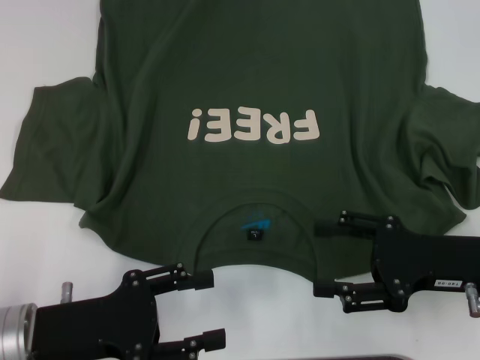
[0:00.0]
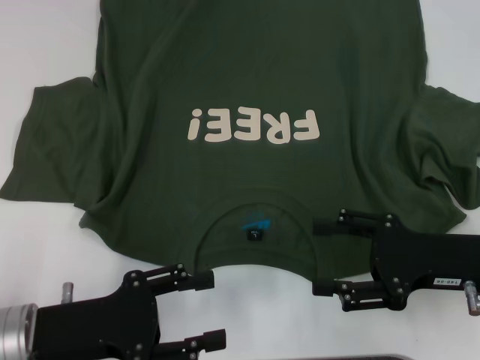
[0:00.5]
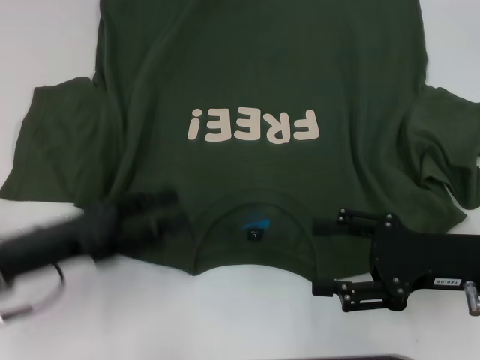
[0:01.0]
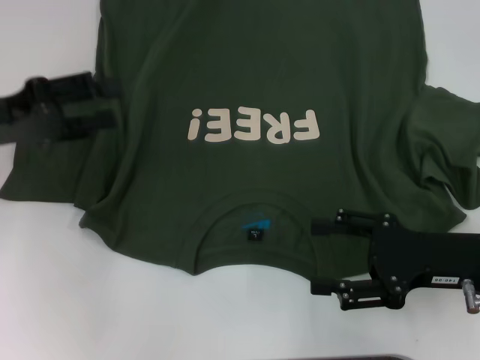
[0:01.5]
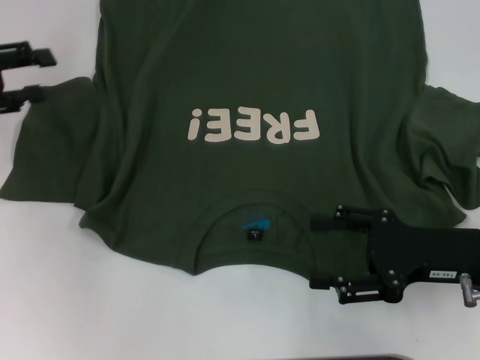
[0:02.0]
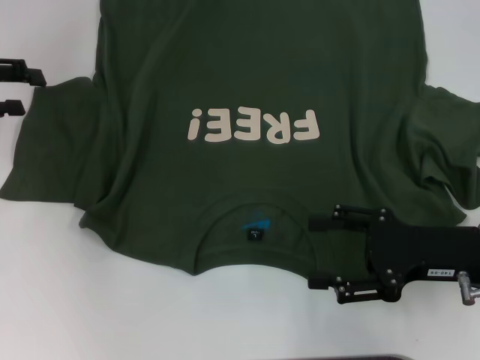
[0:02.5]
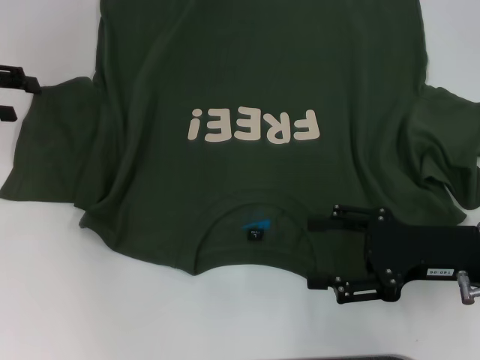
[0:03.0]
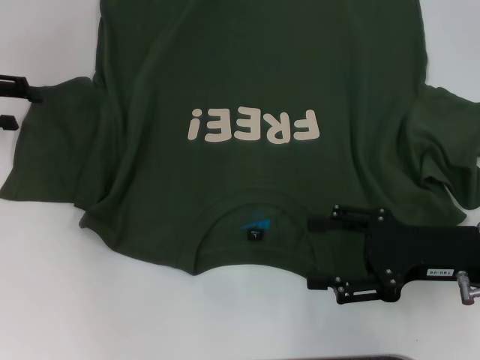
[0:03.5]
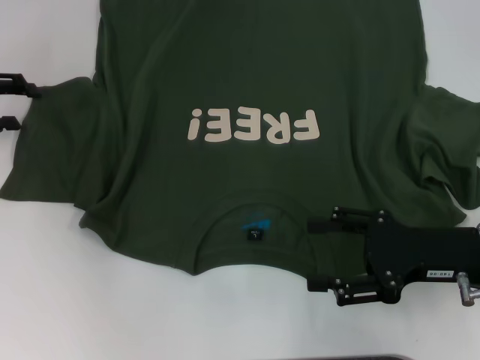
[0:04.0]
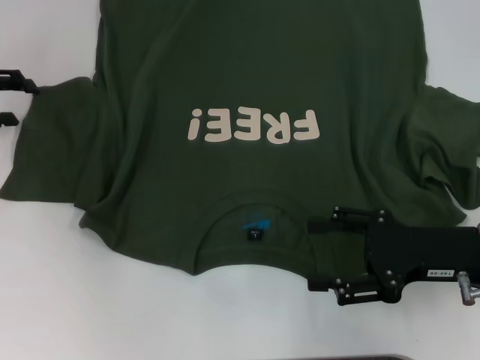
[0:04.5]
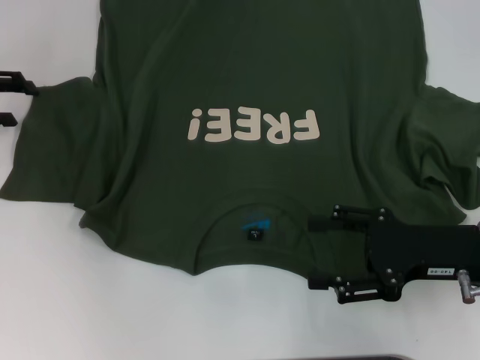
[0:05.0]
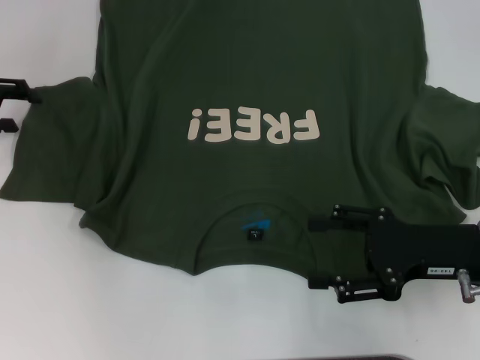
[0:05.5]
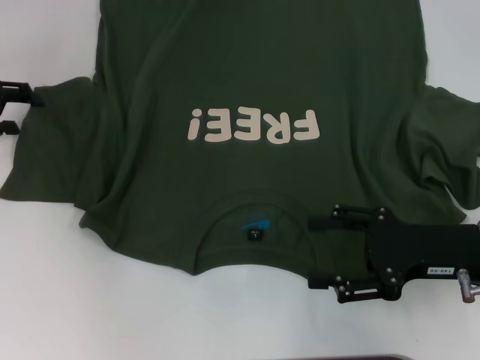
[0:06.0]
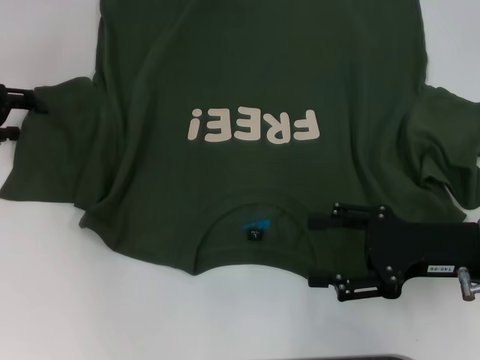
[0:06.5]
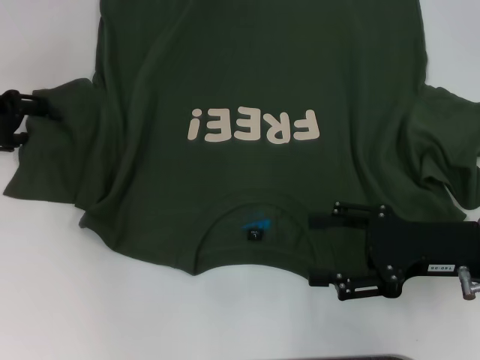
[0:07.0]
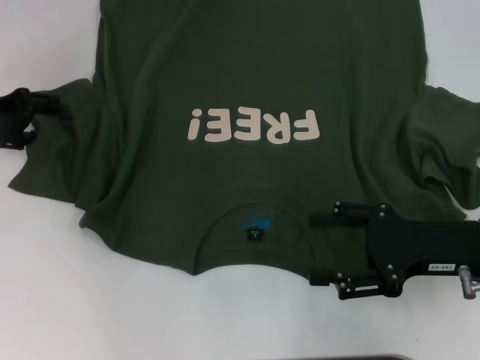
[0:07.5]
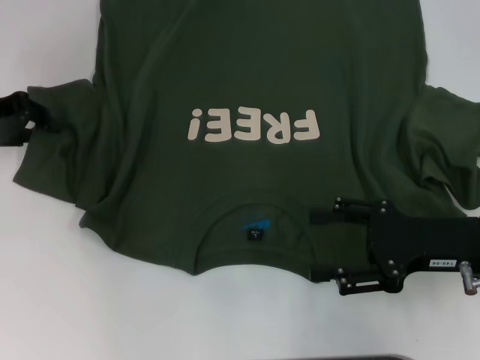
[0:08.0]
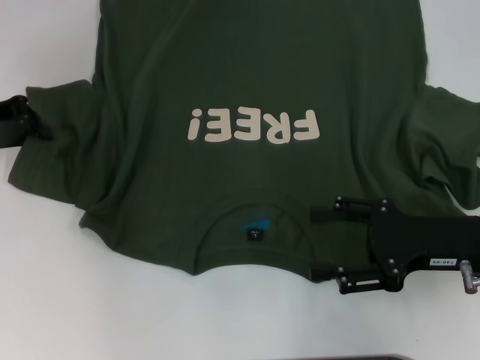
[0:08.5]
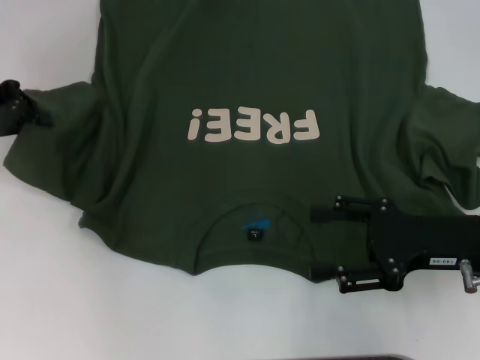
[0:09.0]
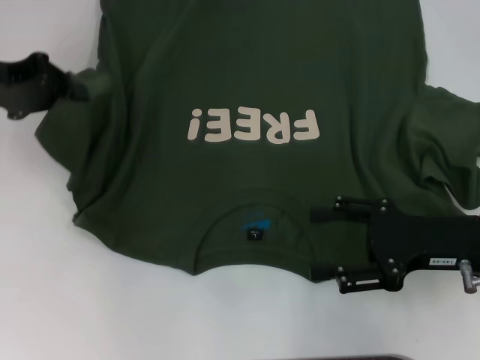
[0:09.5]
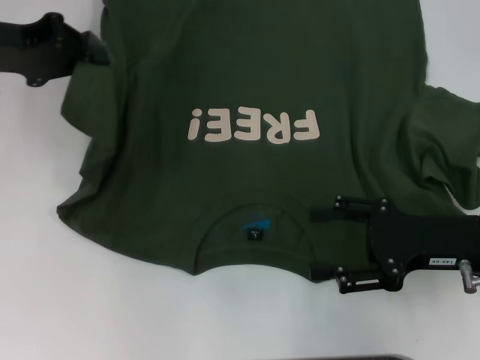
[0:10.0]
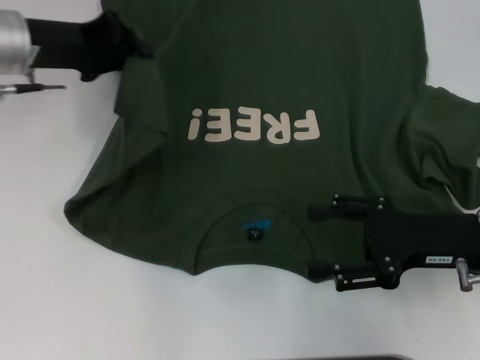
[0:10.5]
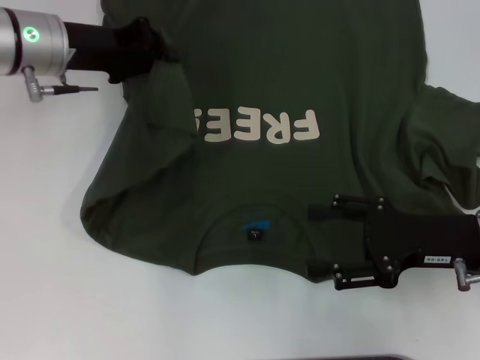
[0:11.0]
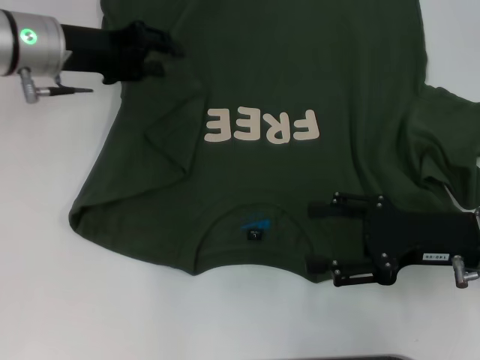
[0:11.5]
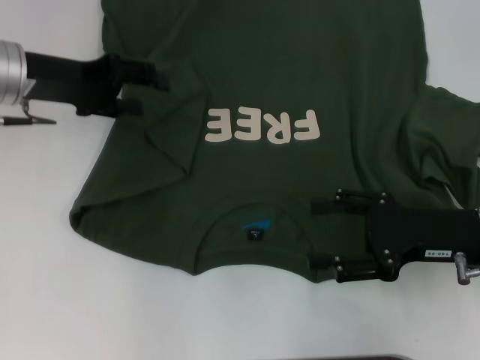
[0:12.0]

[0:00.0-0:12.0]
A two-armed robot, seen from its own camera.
0.0 to 2.0 s: The left gripper shifts roughly 25 cm forward, to the left and upward.
4.0 to 8.0 s: The grippers move only a little.
8.0 to 10.0 s: The left gripper travels upward by roughly 5 cm, and closes its fingers.
10.0 to 12.0 s: The left gripper opens up.

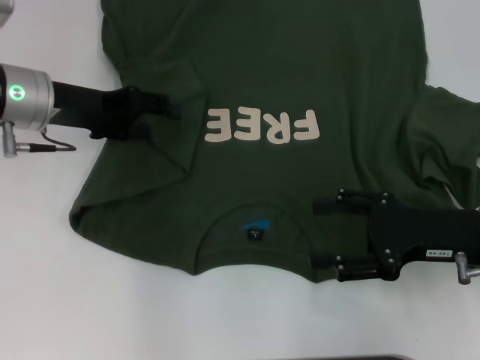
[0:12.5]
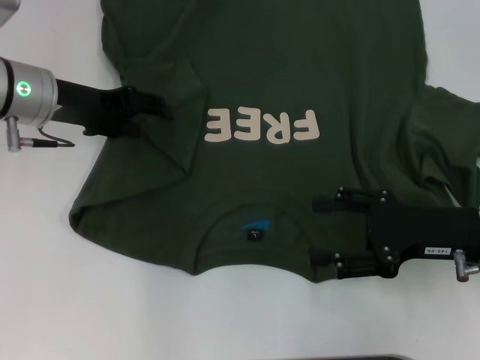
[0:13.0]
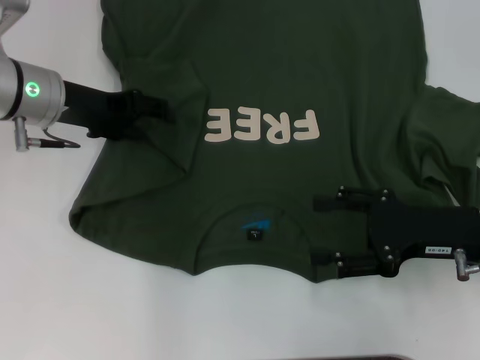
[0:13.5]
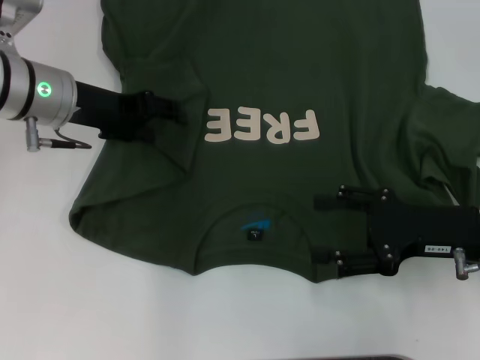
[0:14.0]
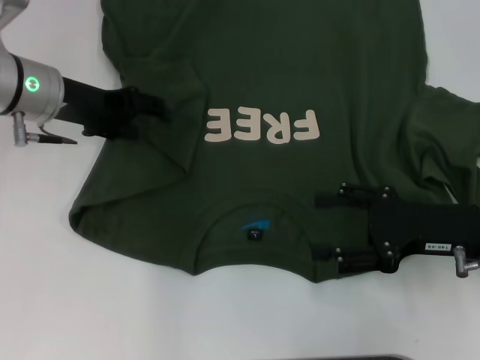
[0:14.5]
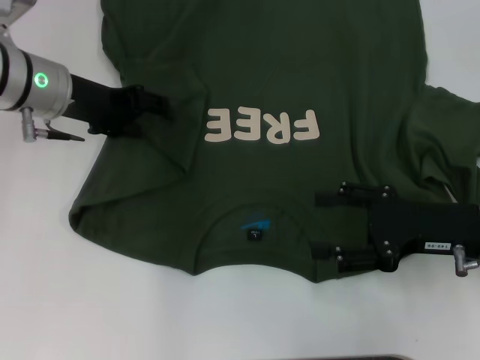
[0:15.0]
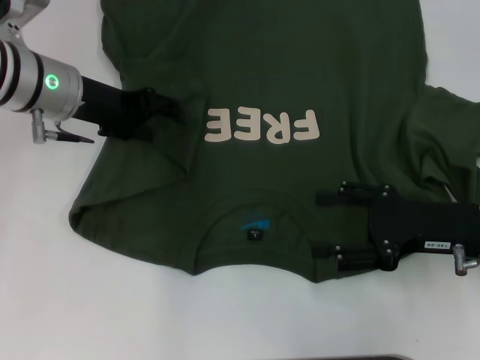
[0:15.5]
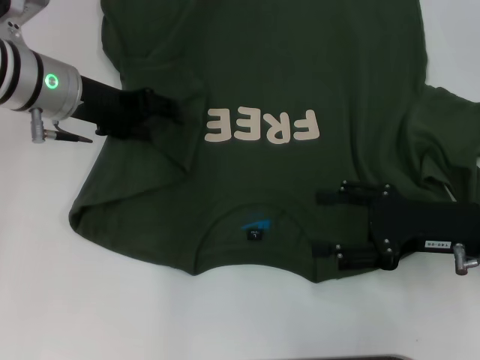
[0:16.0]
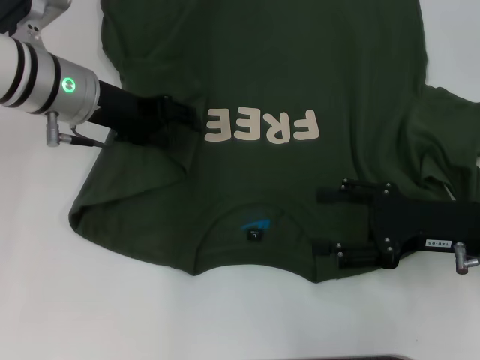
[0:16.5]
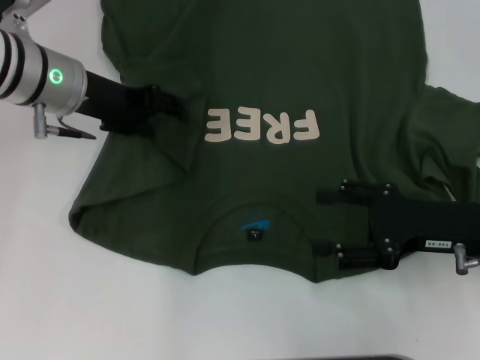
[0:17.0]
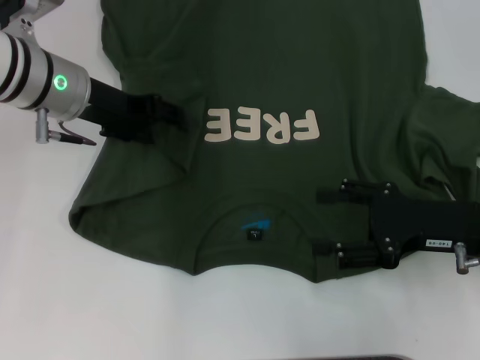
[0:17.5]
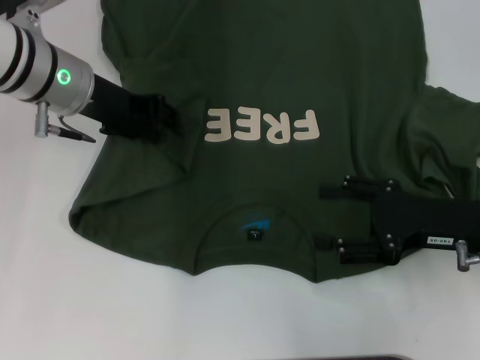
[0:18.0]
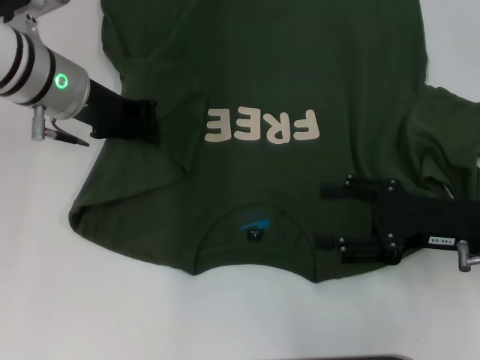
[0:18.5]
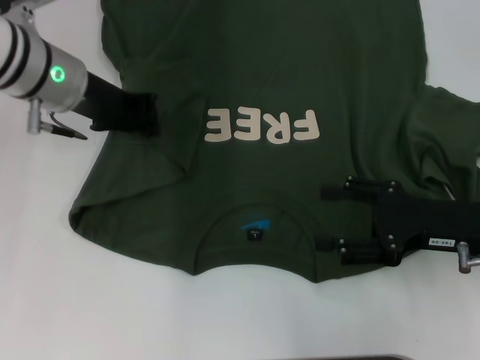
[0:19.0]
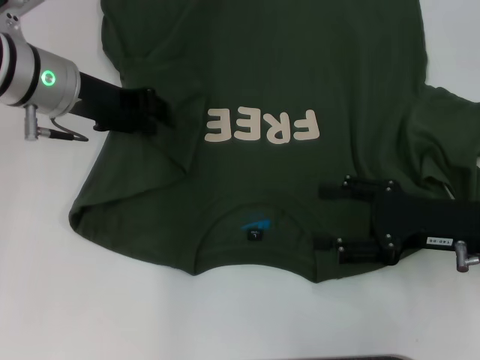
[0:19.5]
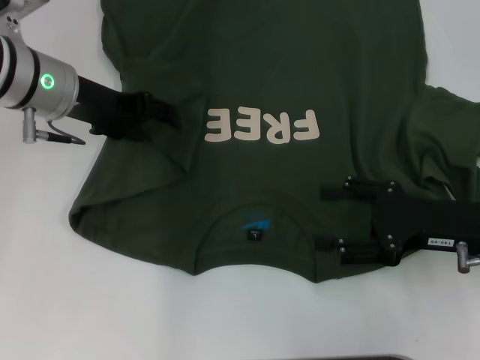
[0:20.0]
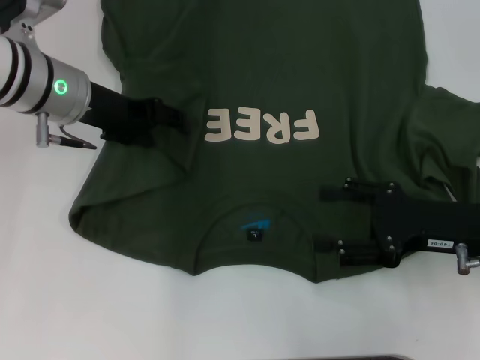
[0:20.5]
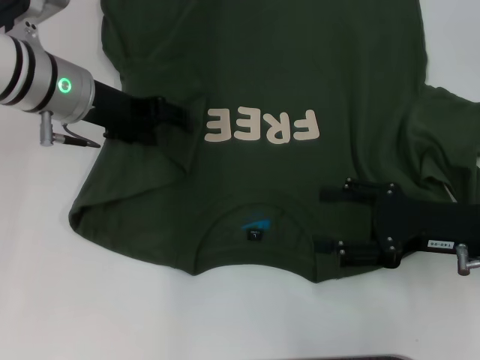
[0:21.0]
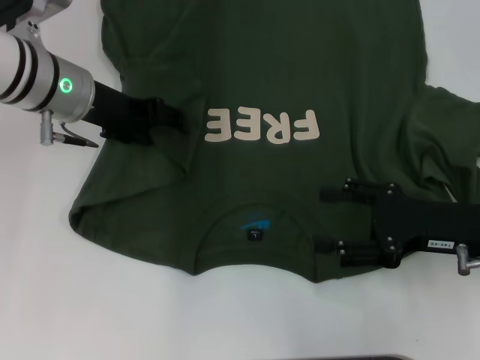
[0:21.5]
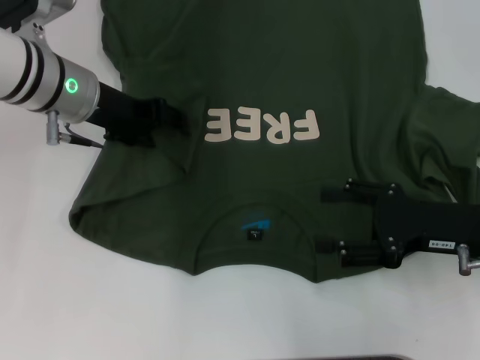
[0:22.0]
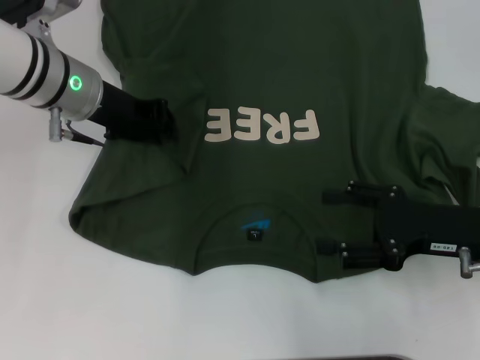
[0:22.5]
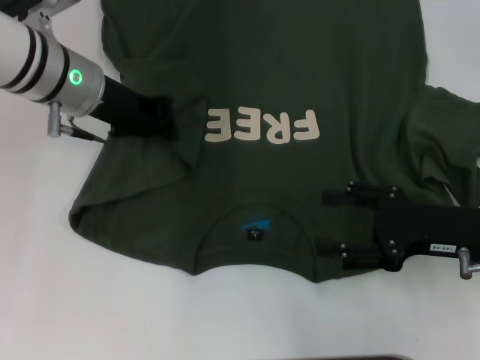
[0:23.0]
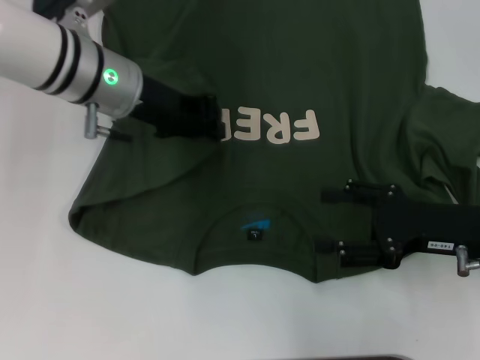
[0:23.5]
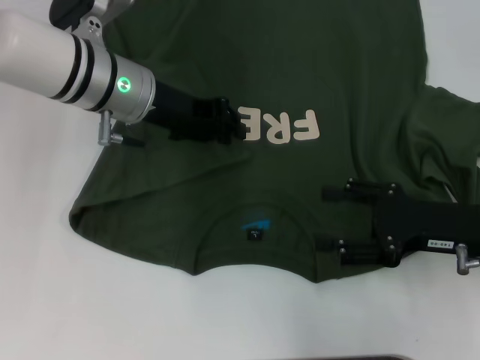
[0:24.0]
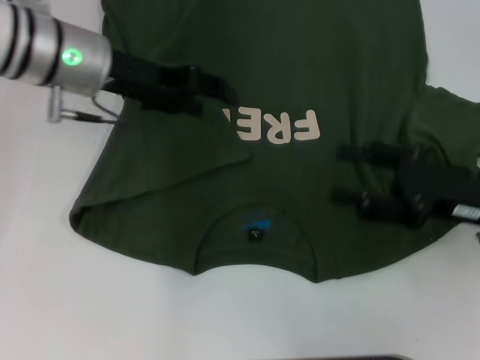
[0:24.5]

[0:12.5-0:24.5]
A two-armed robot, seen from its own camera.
12.5 to 16.5 s: The grippers make only small movements.
16.5 to 18.5 s: The left gripper closes its fingers.
18.5 to 20.5 s: The left gripper opens.
20.5 to 22.5 s: The left gripper closes up.
22.5 to 24.5 s: The left gripper closes, then opens again.

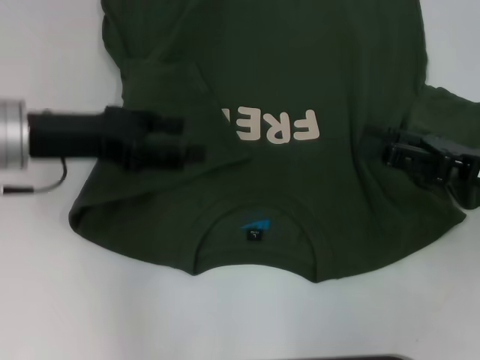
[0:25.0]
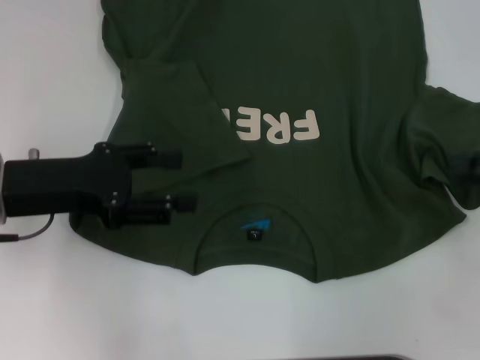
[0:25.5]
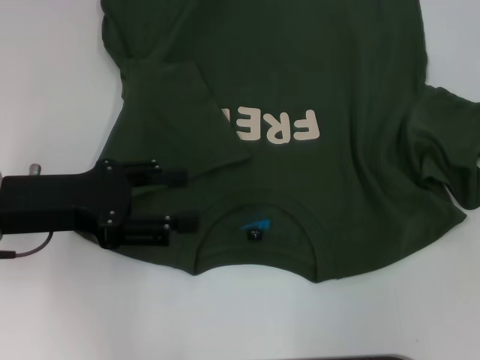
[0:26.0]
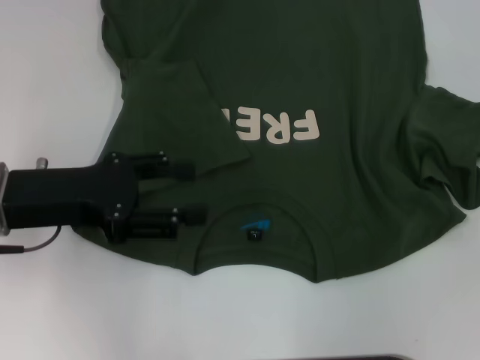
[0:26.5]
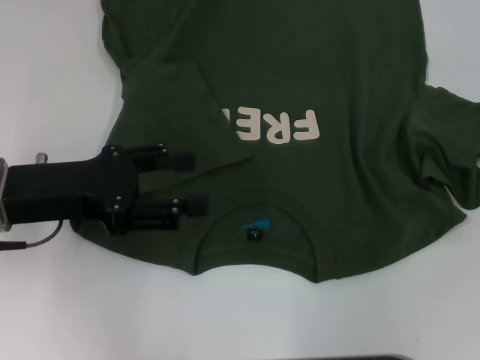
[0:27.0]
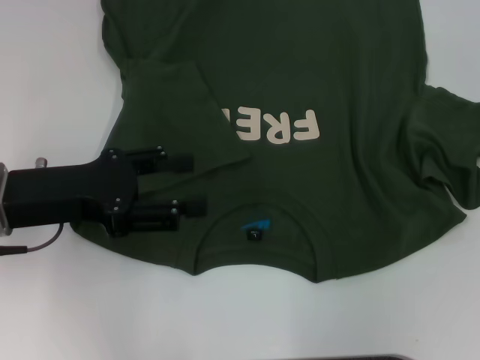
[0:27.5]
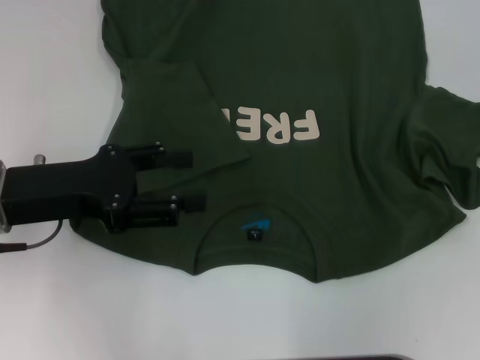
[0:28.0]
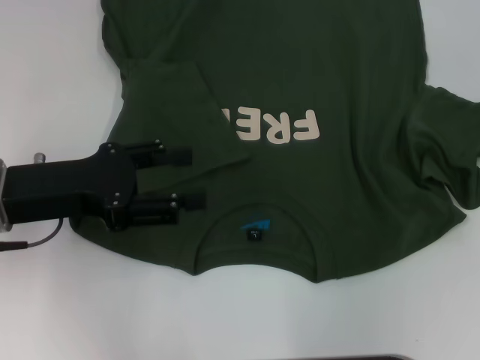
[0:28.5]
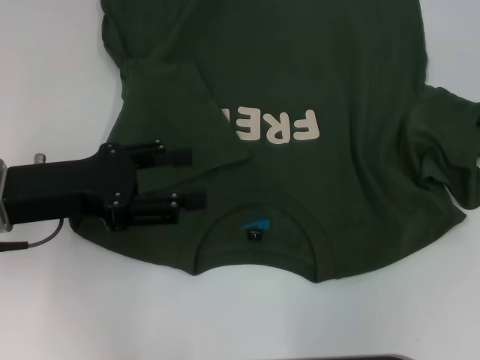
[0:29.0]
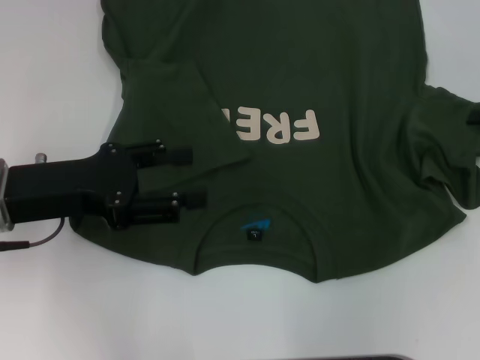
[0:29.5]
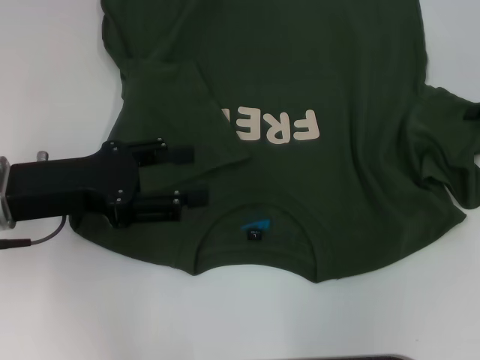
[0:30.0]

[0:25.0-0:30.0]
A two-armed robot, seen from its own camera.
25.0 to 27.5 s: The right gripper travels to the right by approximately 15 cm, while the left gripper heads backward, covering some 5 cm.
27.5 to 30.0 s: The grippers move only a little.
